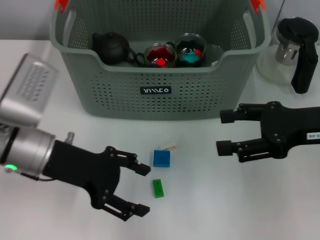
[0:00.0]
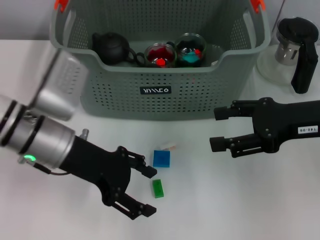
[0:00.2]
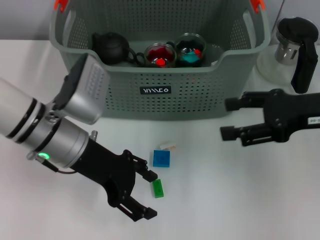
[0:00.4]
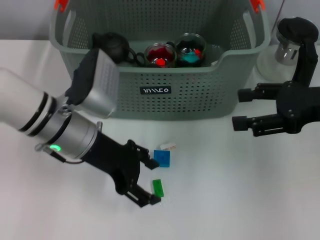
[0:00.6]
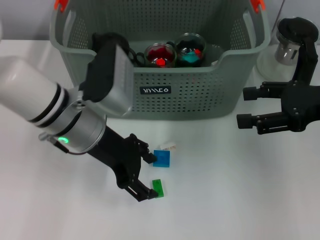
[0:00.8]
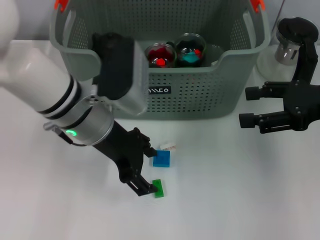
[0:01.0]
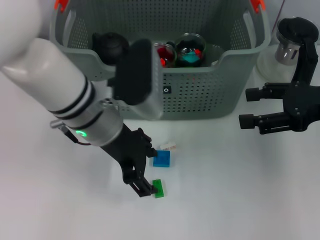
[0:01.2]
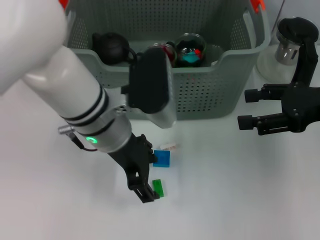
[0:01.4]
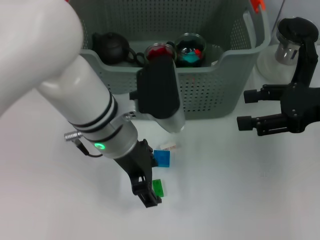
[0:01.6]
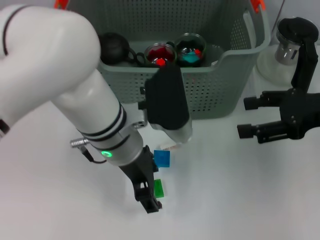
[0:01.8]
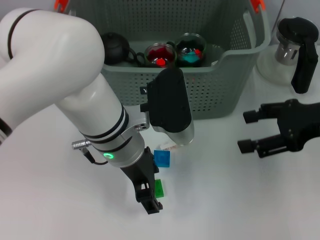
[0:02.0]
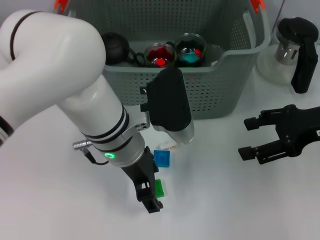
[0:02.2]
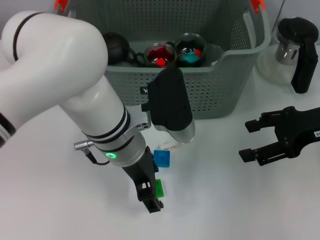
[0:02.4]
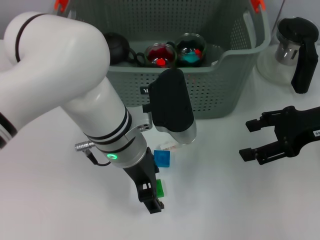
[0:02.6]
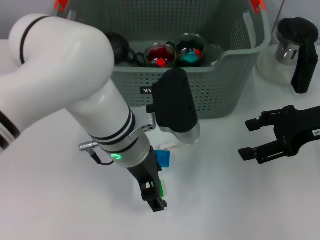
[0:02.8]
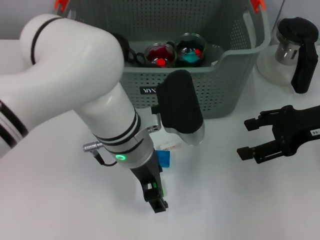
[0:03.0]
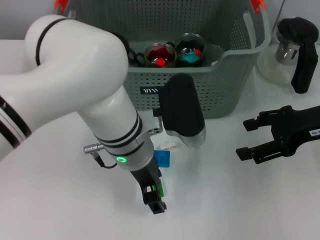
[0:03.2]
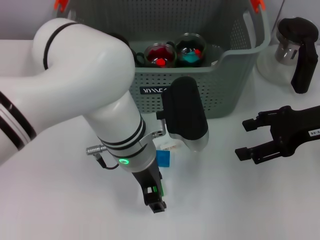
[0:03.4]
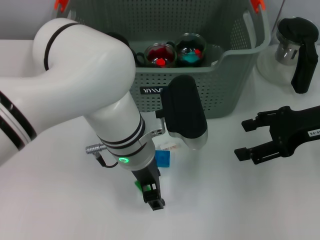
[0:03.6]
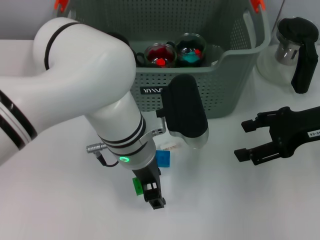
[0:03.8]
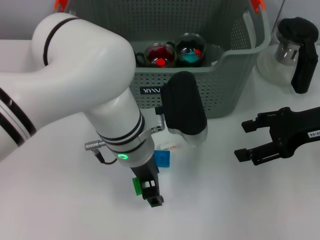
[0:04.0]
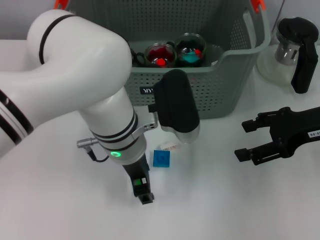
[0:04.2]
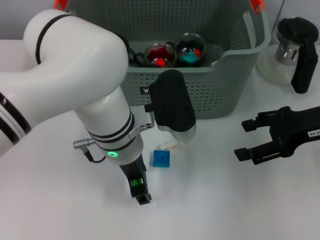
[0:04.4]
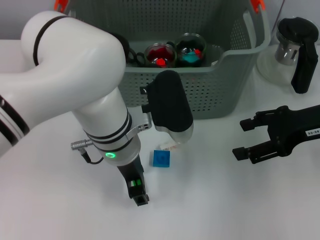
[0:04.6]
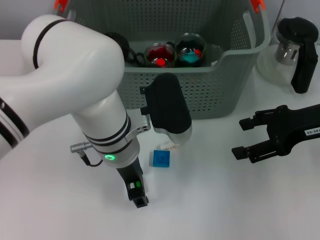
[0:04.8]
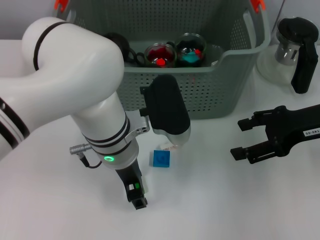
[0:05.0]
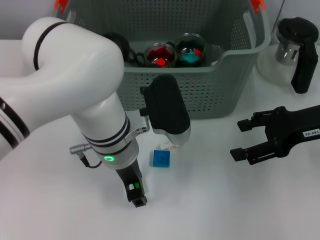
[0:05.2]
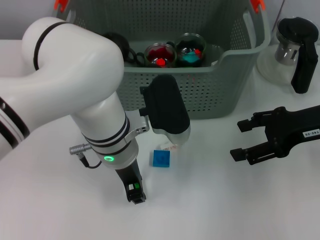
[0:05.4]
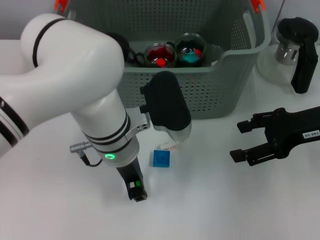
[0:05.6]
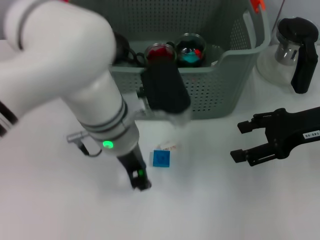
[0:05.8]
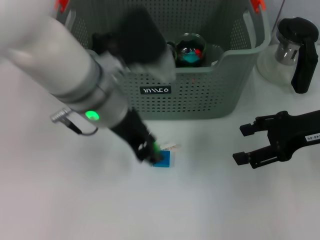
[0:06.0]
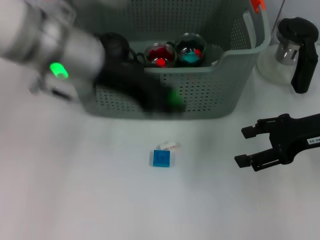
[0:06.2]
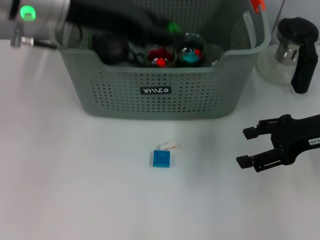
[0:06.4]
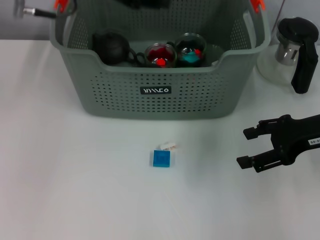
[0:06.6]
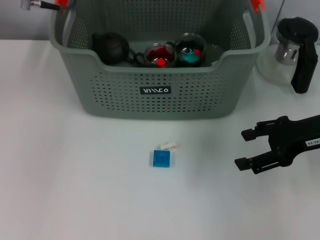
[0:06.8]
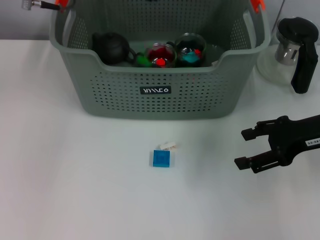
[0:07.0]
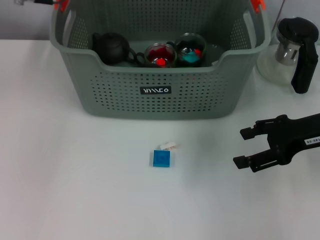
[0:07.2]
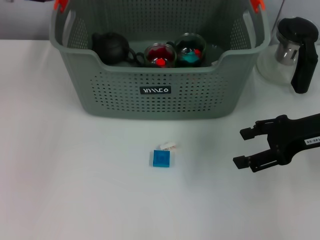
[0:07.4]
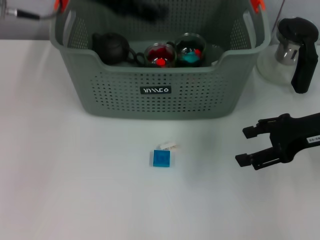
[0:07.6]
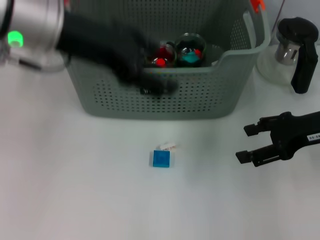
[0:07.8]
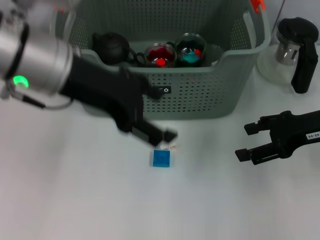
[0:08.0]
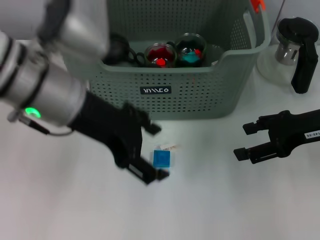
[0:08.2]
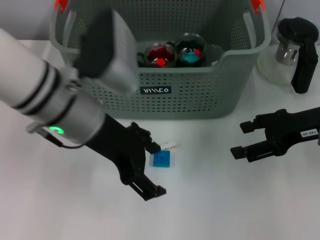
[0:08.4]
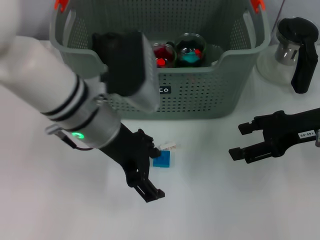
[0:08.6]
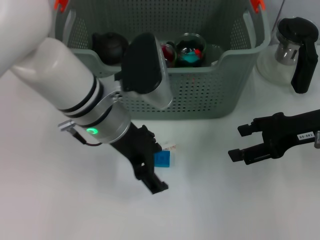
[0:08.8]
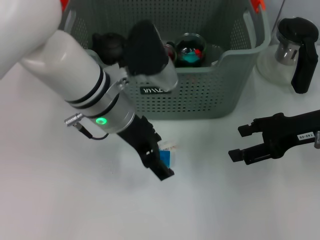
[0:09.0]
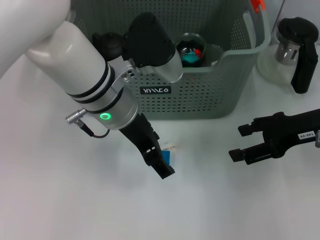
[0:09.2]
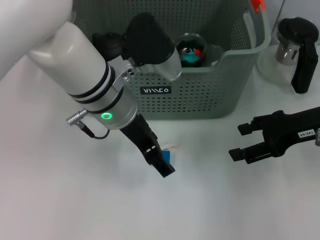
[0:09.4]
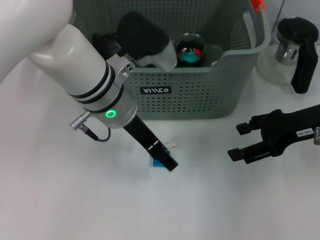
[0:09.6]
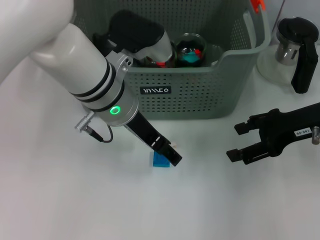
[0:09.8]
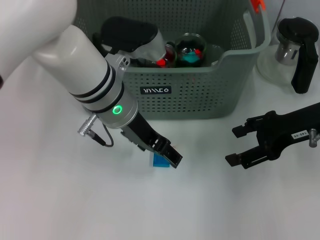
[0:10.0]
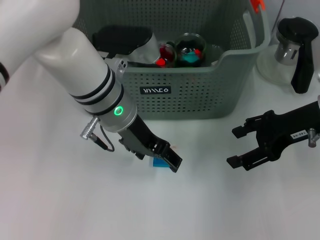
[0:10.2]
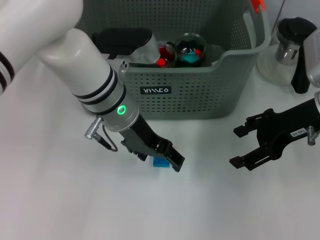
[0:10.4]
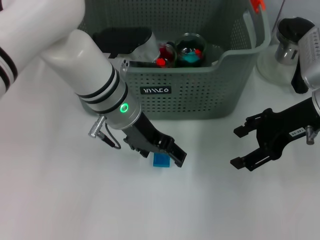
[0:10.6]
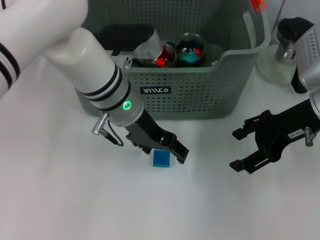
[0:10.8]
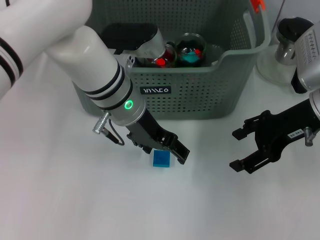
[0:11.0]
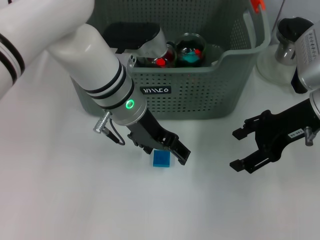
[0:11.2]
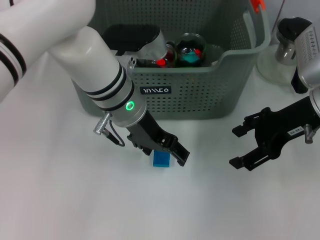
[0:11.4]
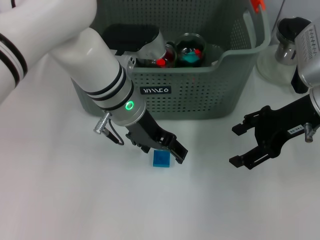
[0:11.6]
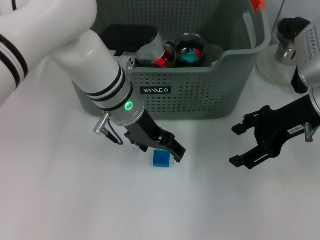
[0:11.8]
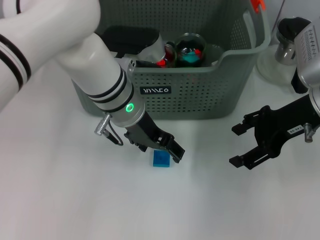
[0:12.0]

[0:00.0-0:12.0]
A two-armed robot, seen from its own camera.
Task of the whole recording: pick up the teacup on the table and place it into the storage bin, pick up the block on the table and place it into the storage bin.
Step, 0:00.0 to 0:05.4: Grasp the green block with left gripper.
Step, 0:05.6 to 0:07.0: Place the green block in the storage box with left gripper.
0:00.0 to 0:01.6: The left gripper is displaced to the right by approximately 15 cm.
0:03.0 to 0:04.4: The grippers move only a little.
0:04.4 to 0:06.0: The left gripper is displaced upward by about 5 cm.
0:06.0 to 0:07.6: The left gripper travels upward and to the left by roughly 15 cm, and opens.
0:07.6 to 0:09.0: The left gripper moves downward and to the right, approximately 15 cm.
0:10.4 to 0:12.0: The grippers move only a little.

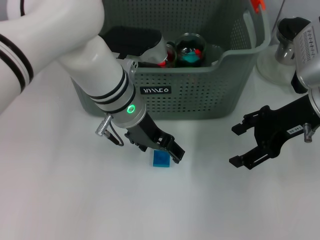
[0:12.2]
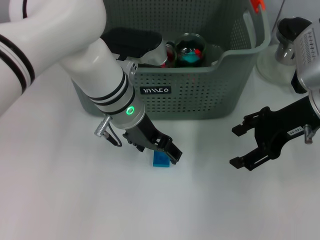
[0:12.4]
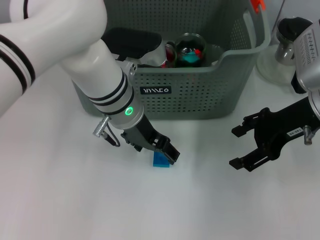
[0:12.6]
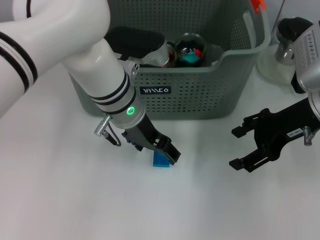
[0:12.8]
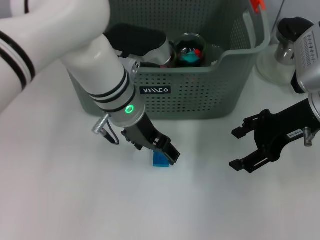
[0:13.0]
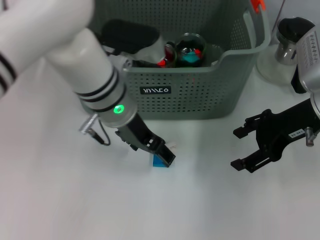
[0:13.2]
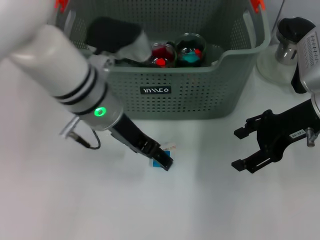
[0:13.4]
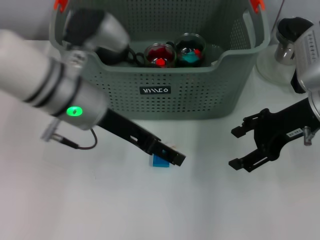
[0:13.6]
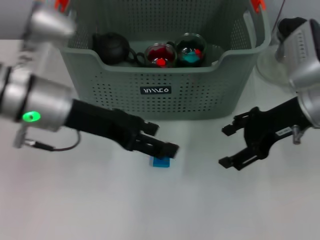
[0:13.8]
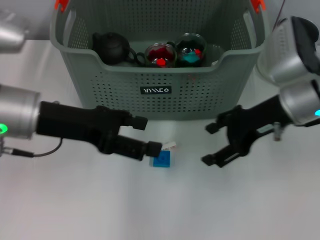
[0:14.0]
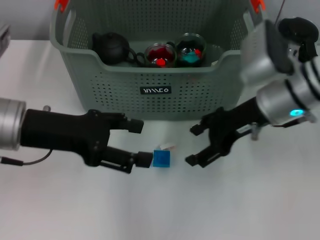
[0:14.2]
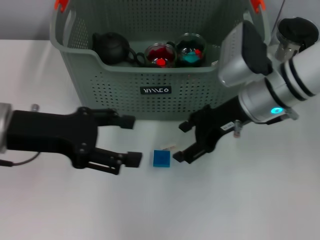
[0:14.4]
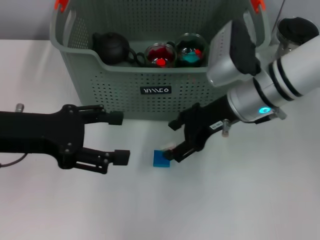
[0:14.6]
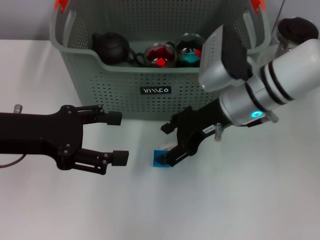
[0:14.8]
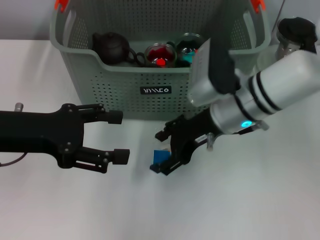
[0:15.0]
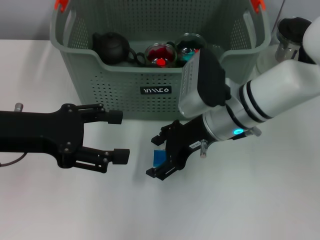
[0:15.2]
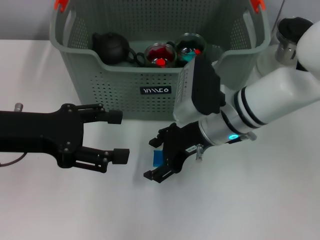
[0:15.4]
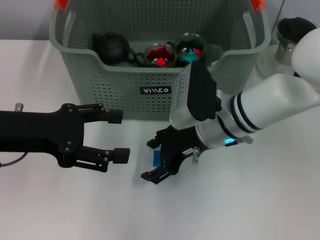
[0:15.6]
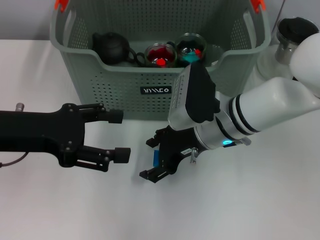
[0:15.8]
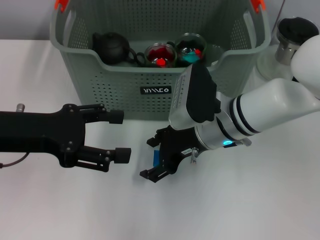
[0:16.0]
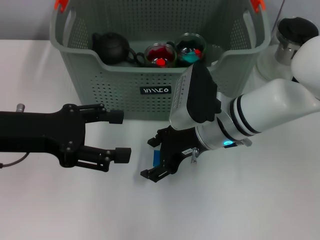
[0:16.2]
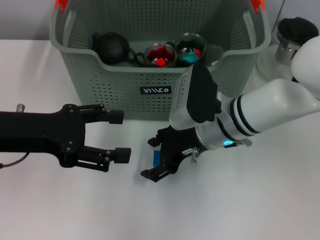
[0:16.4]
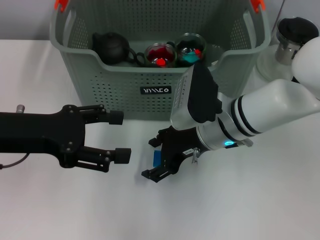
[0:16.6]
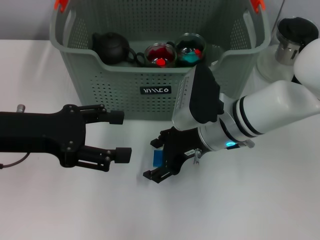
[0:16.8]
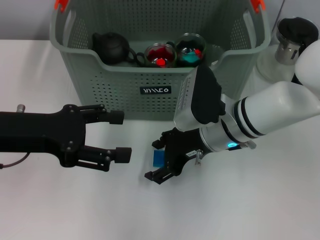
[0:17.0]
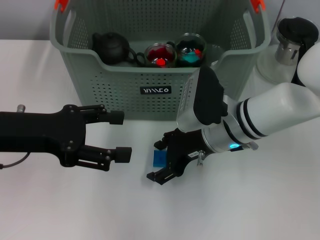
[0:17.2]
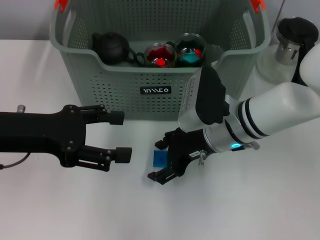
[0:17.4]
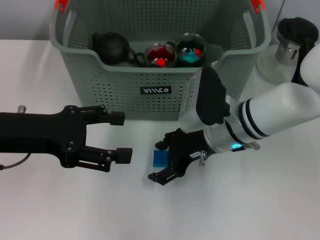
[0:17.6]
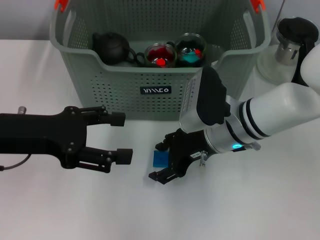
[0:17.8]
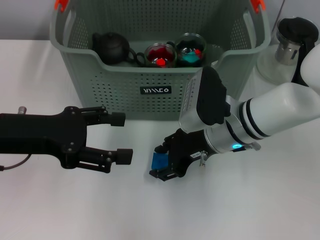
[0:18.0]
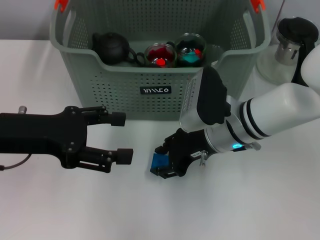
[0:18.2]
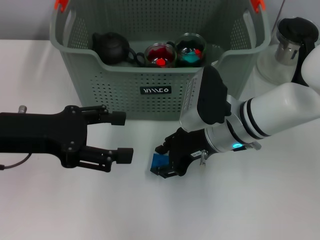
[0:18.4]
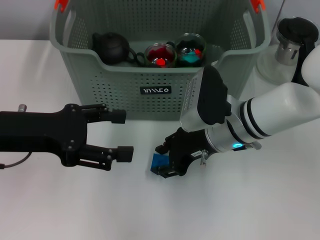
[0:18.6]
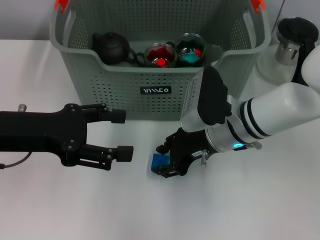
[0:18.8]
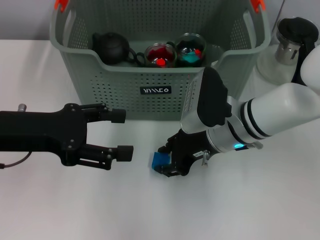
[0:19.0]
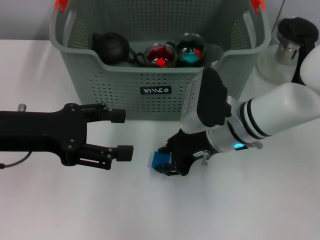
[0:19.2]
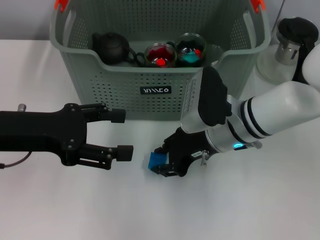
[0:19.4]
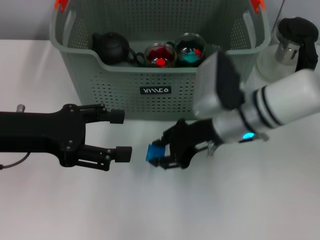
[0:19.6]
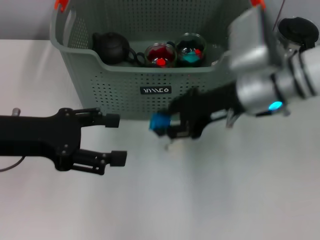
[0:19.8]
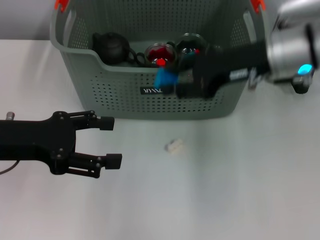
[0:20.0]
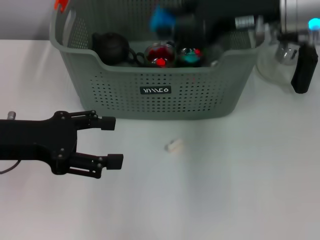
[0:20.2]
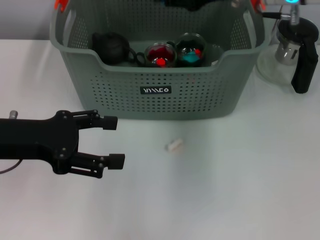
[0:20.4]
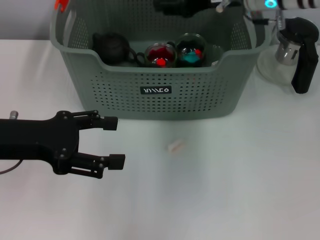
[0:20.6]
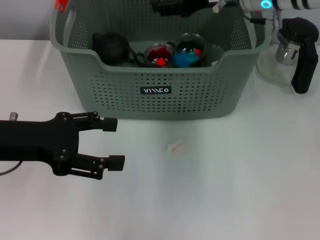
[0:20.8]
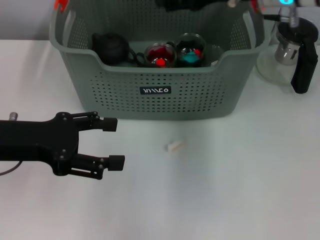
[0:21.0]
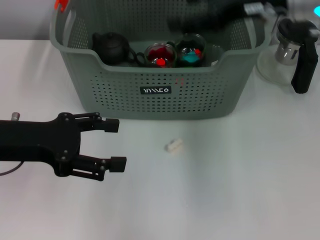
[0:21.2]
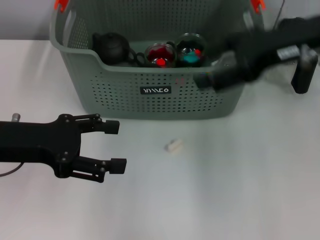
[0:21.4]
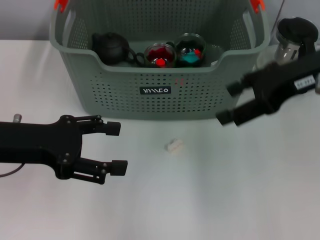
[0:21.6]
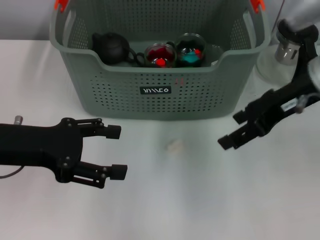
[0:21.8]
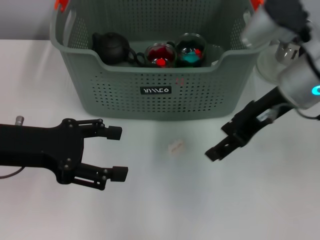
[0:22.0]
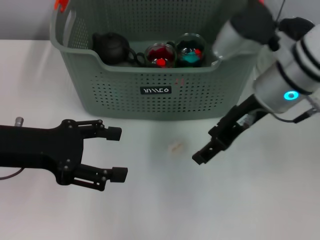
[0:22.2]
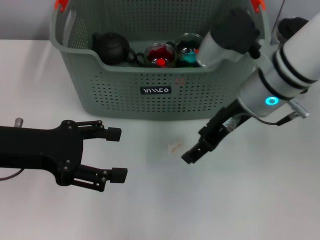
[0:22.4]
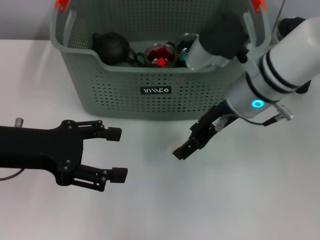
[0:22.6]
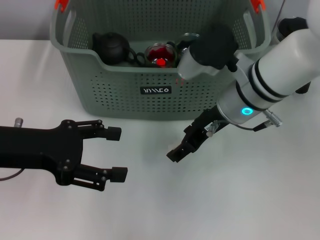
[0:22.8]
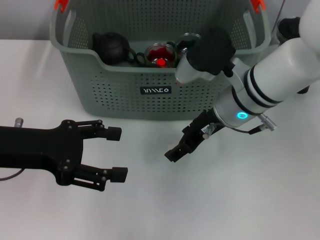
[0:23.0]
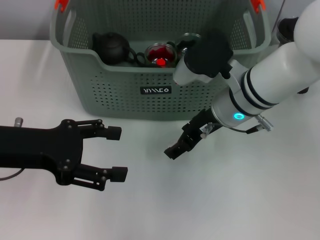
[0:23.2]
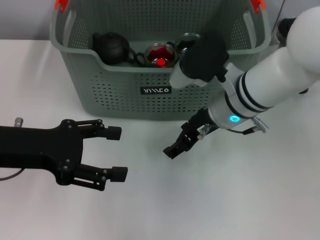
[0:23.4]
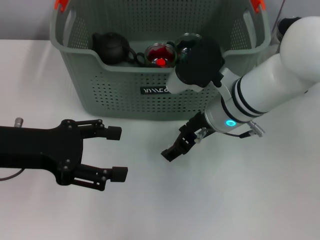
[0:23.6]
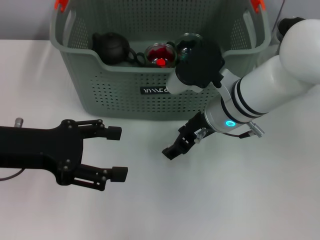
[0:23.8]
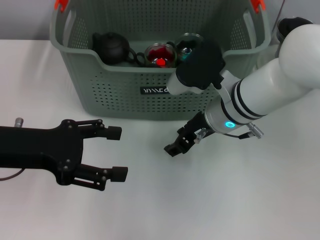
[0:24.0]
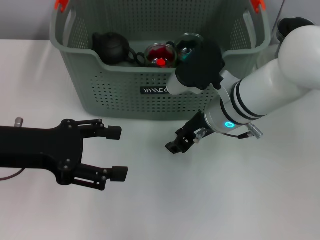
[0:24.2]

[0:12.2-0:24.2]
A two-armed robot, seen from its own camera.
Task of the whole recording: pick up the teacup on the table and place it into the storage bin, pick up the block on the table and place it into the storage bin.
Step, 0:12.2 to 0:19.0: Grasp the dark blue block with right gripper.
Step, 0:19.4 to 0:20.8: Place the dark blue block in the storage box with right gripper.
0:12.2 to 0:13.8: The left gripper shifts approximately 10 cm to the left and backward.
0:13.8 to 0:15.2: The grippers both shift to the left by roughly 10 cm.
0:15.2 to 0:16.6: The grippers stay close to where they were, moving slightly.
0:16.6 to 0:18.2: Neither gripper changes place.
0:18.2 to 0:19.8: The right gripper is displaced upward by approximately 5 cm.
0:19.8 to 0:21.2: The right gripper travels upward by approximately 10 cm, and opens its fingers.
0:21.2 to 0:22.6: The right gripper heads downward and to the left, covering roughly 10 cm.
0:22.6 to 0:24.2: The right gripper moves some 5 cm.
